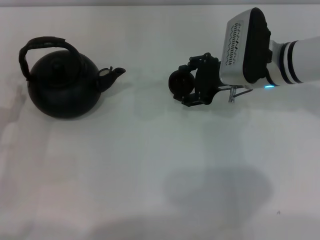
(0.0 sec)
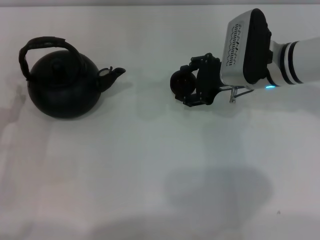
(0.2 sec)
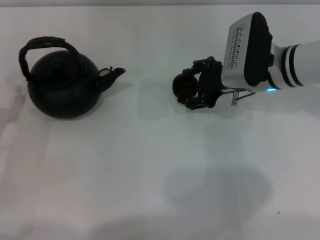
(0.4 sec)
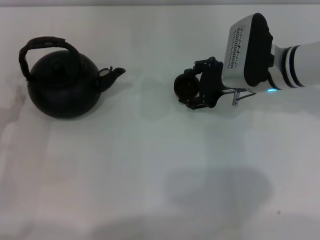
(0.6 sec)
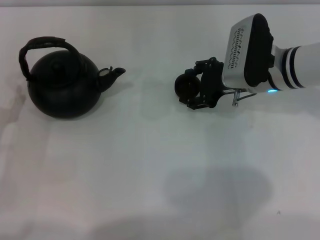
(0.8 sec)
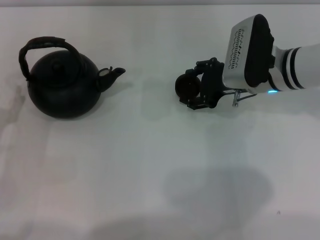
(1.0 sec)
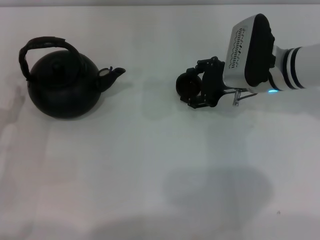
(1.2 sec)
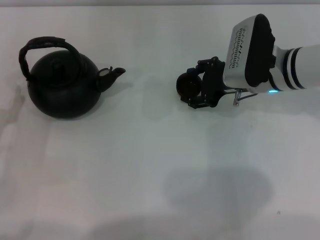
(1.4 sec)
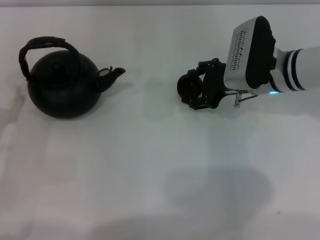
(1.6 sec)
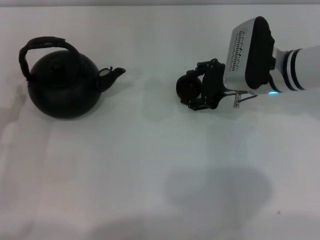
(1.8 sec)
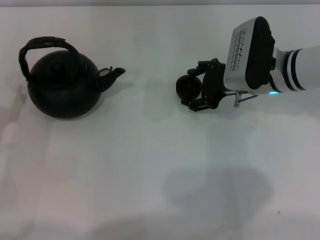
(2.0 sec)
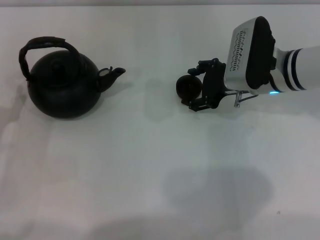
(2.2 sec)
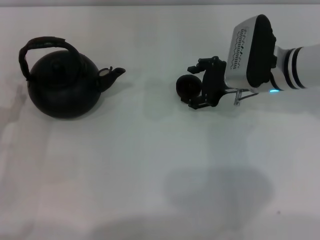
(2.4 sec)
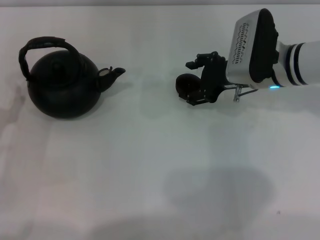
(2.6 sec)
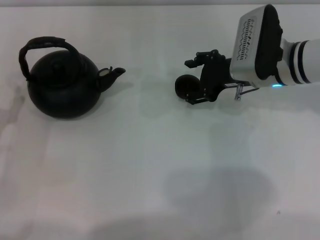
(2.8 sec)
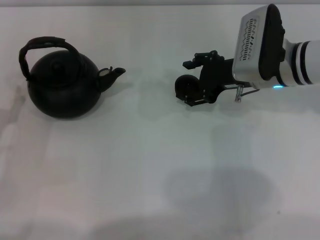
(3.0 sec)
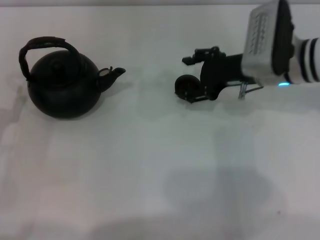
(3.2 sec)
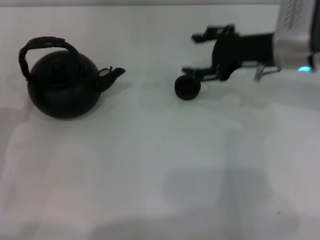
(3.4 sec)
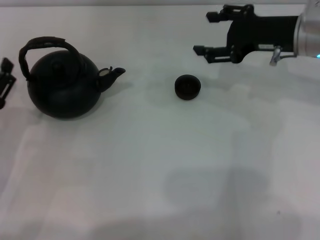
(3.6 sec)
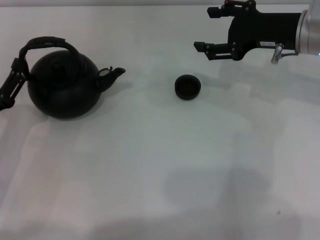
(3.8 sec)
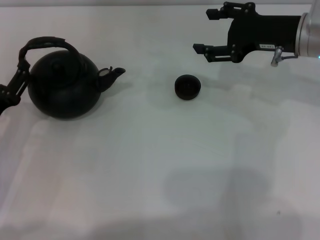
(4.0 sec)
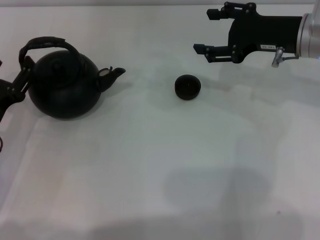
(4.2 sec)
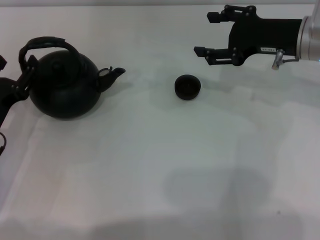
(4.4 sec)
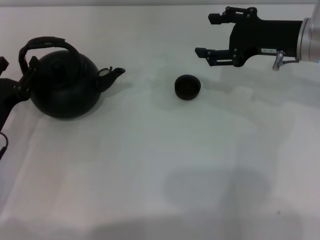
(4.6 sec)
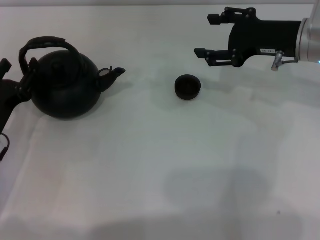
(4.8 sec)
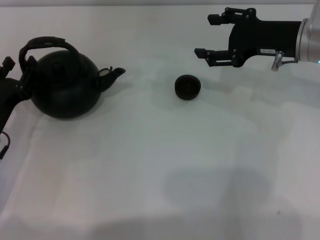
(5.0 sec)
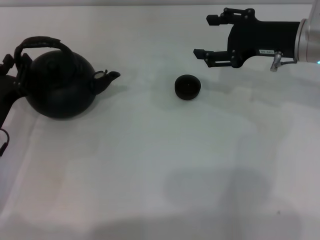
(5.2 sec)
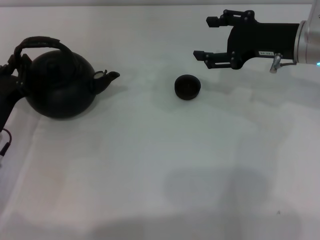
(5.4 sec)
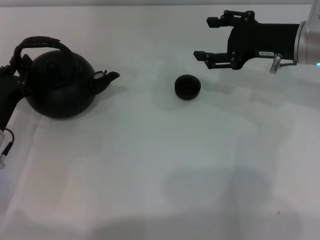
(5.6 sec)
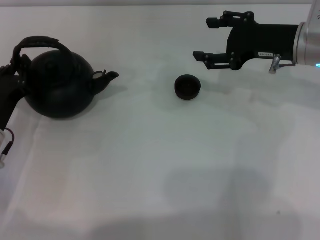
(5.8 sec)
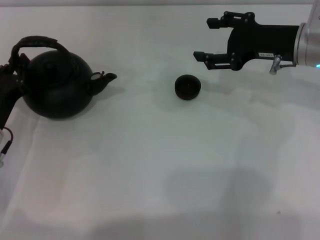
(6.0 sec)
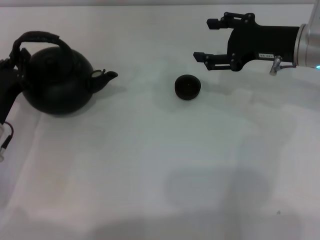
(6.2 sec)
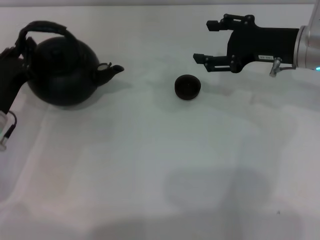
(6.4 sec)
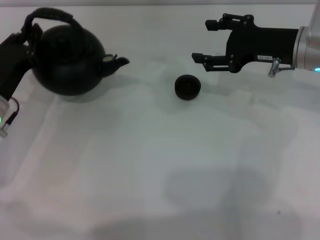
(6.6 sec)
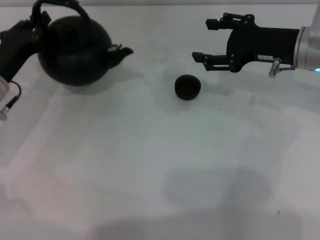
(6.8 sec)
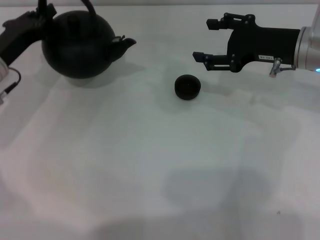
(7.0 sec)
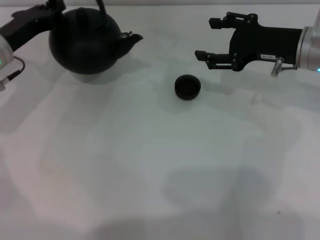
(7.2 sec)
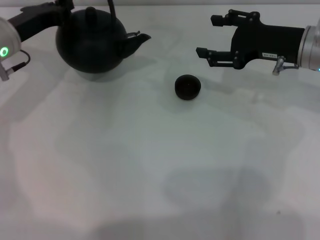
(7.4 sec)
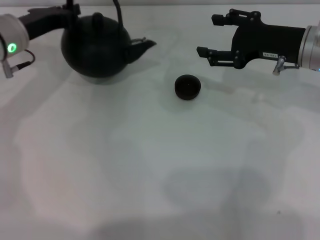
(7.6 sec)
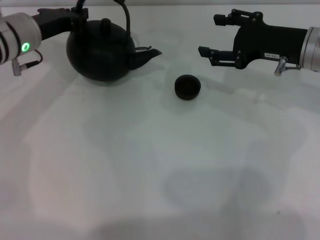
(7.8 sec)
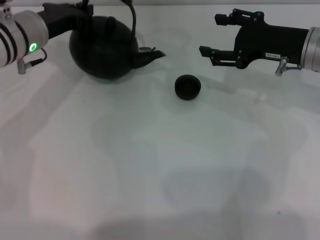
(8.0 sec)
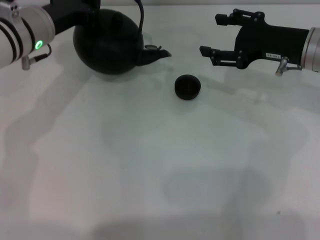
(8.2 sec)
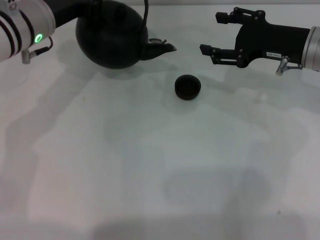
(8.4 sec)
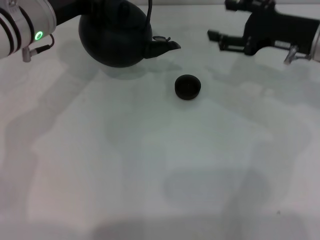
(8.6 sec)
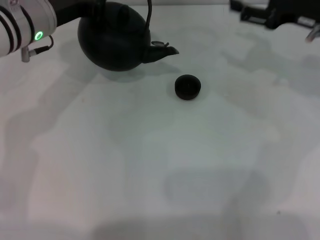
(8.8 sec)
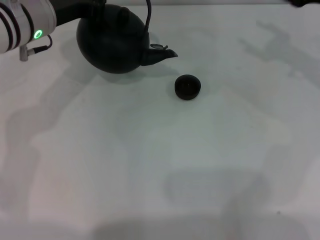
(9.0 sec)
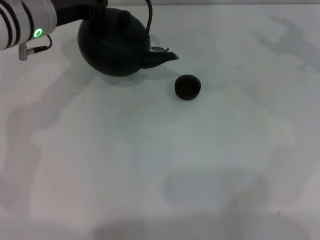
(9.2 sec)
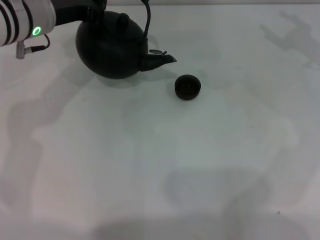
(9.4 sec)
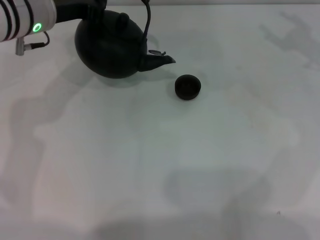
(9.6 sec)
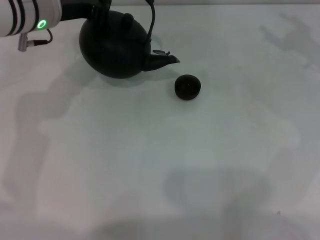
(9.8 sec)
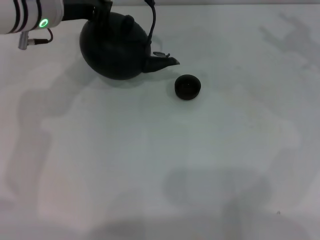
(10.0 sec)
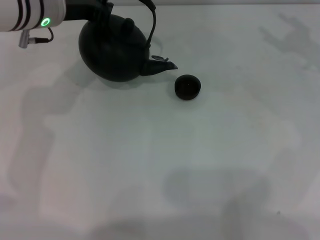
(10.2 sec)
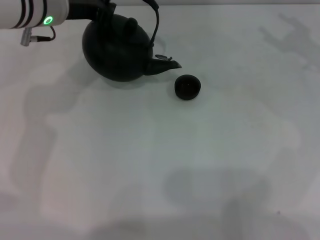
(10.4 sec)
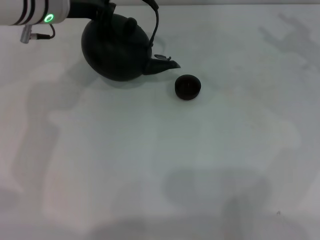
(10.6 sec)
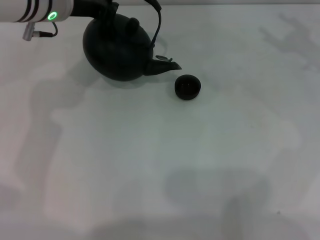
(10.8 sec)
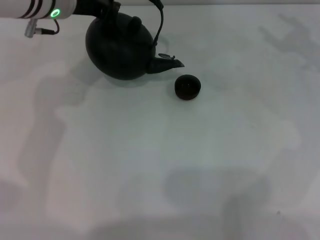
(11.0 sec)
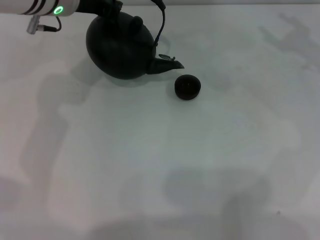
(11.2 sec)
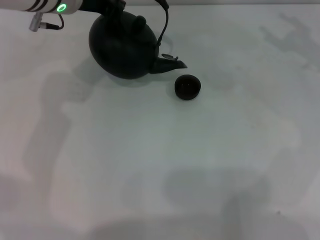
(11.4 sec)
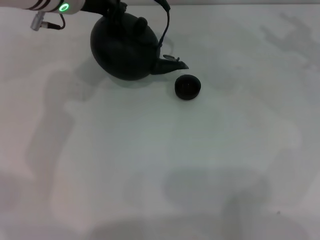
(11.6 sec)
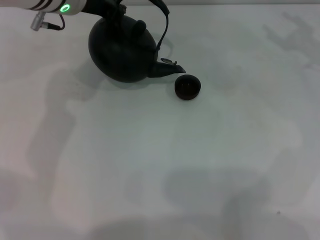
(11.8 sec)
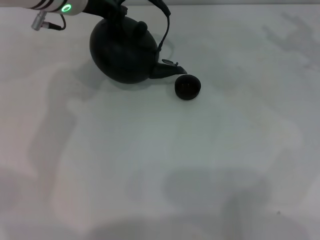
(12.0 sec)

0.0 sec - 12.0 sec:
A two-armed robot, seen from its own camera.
Task of the whole recording: Grasp the handle of the teapot with one hand and pour tea into the teacup.
Step, 0.0 sec - 3.2 sec: Place the teacup in the center of view with the right gripper.
Step, 3.4 sec - 7.8 sec: Pick up the teapot with the left gripper.
0.0 sec - 3.0 sec: The grippers make only small movements.
3.0 sec - 4.4 sec: The right gripper goes approximately 5 cm to the right.
4.4 sec - 6.0 sec: The left gripper closes up.
6.0 sec - 7.6 sec: The left gripper is displaced forward and upward by roughly 15 cm.
7.6 sec - 9.0 sec: Both grippers move to the right, about 5 cm.
9.0 sec - 10.4 sec: The grippers make only small movements.
10.4 sec - 12.0 sec: The grippers stay close to where they were, moving slightly.

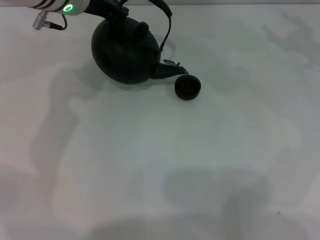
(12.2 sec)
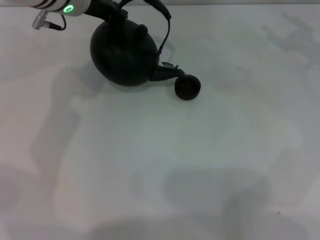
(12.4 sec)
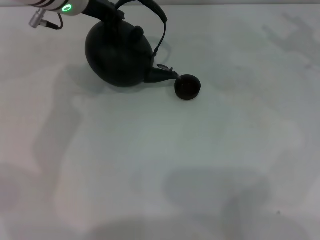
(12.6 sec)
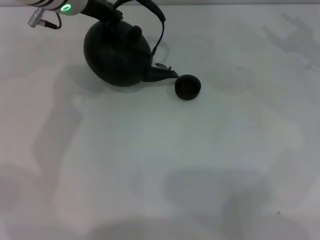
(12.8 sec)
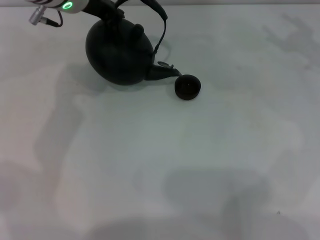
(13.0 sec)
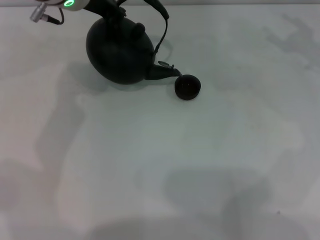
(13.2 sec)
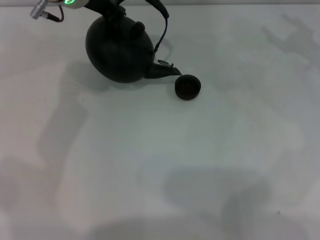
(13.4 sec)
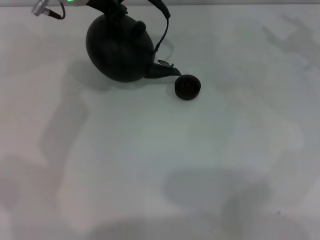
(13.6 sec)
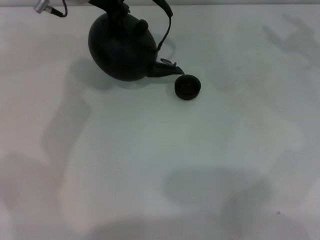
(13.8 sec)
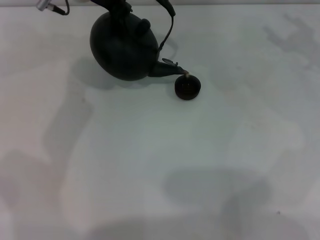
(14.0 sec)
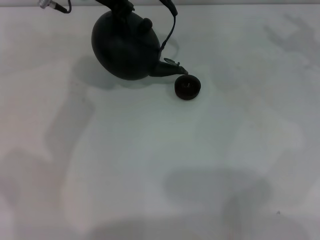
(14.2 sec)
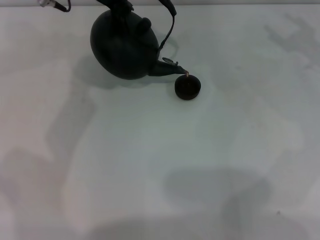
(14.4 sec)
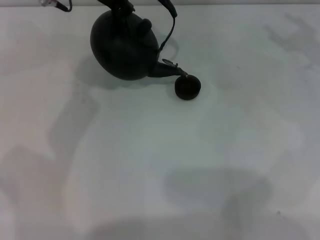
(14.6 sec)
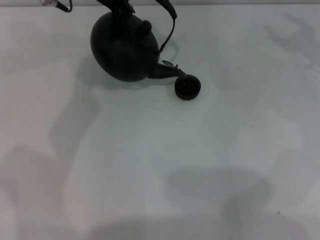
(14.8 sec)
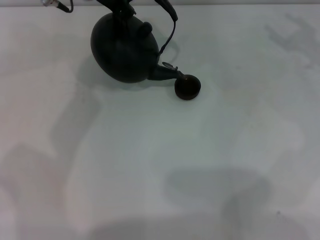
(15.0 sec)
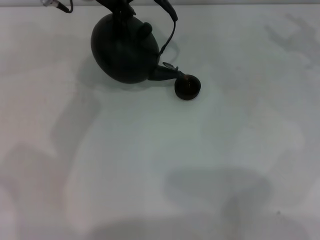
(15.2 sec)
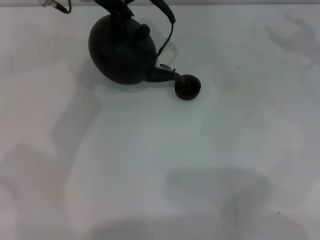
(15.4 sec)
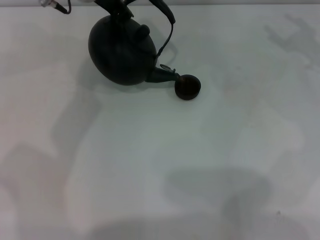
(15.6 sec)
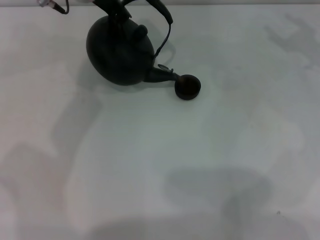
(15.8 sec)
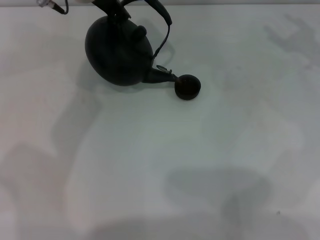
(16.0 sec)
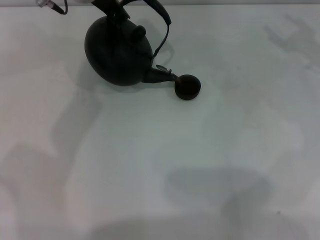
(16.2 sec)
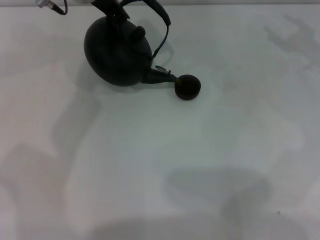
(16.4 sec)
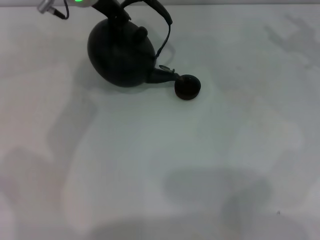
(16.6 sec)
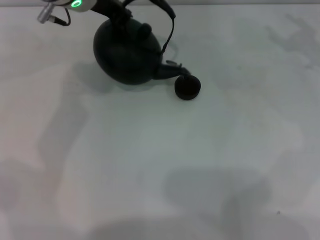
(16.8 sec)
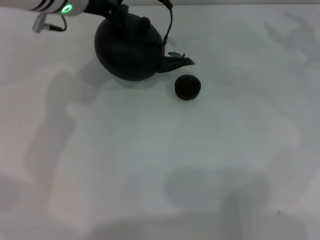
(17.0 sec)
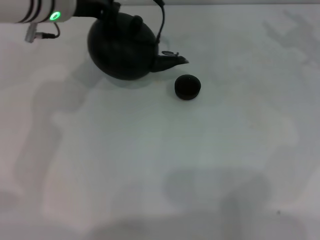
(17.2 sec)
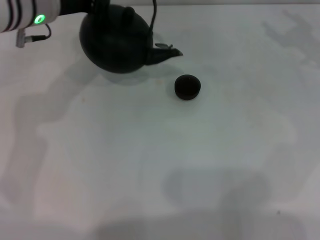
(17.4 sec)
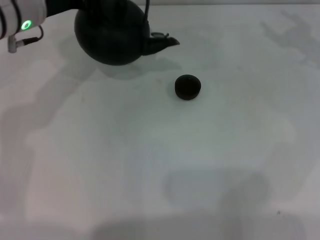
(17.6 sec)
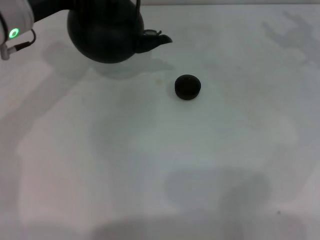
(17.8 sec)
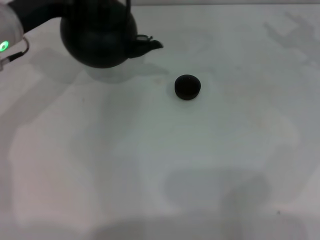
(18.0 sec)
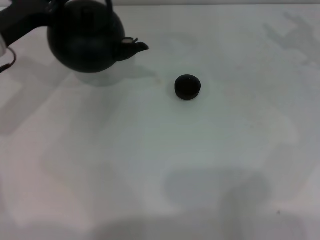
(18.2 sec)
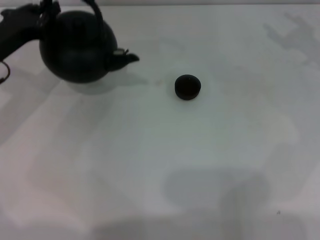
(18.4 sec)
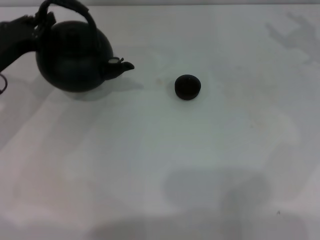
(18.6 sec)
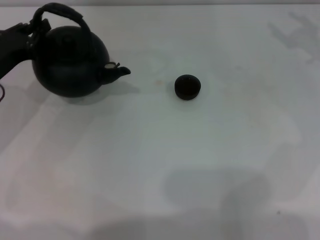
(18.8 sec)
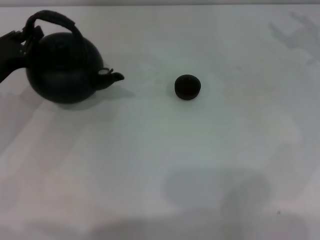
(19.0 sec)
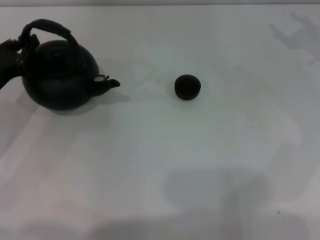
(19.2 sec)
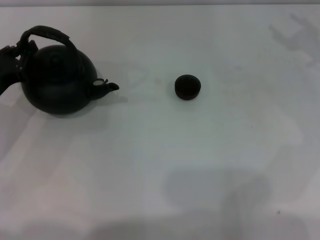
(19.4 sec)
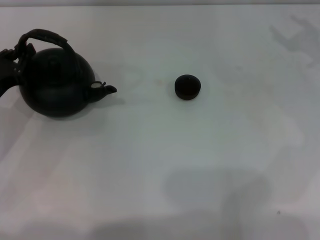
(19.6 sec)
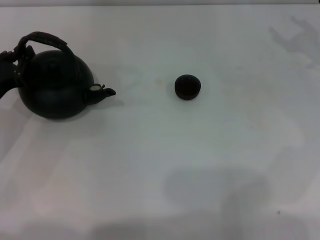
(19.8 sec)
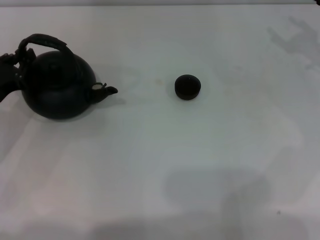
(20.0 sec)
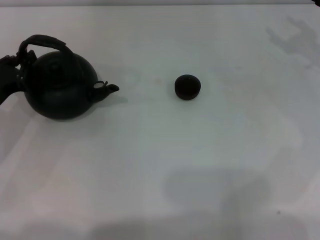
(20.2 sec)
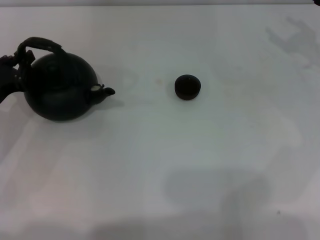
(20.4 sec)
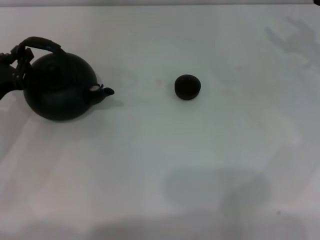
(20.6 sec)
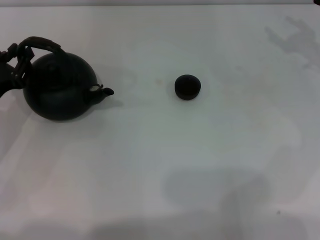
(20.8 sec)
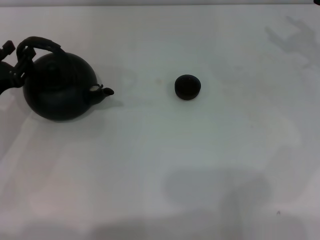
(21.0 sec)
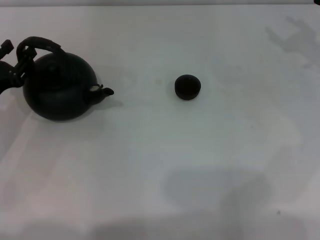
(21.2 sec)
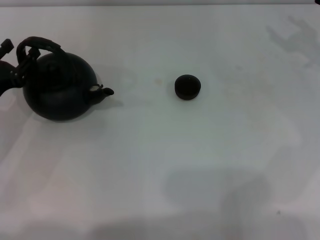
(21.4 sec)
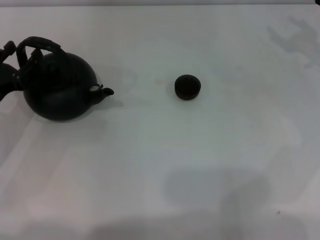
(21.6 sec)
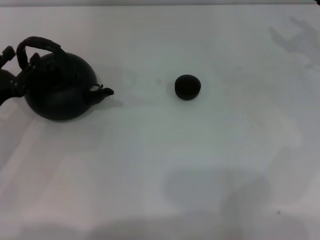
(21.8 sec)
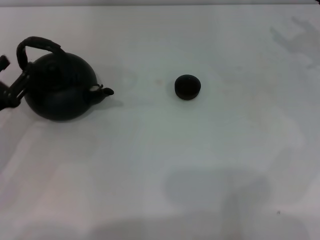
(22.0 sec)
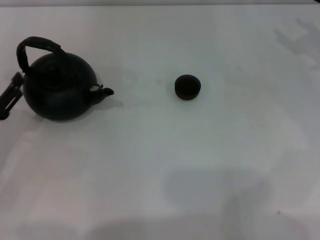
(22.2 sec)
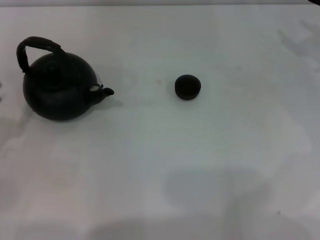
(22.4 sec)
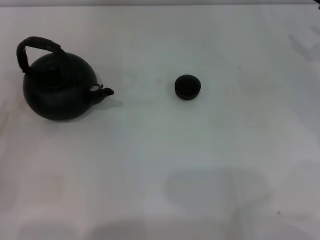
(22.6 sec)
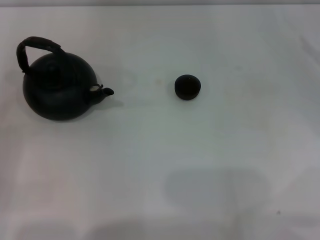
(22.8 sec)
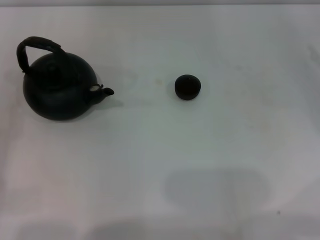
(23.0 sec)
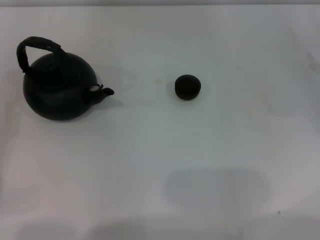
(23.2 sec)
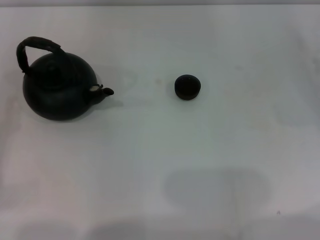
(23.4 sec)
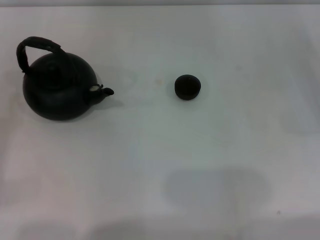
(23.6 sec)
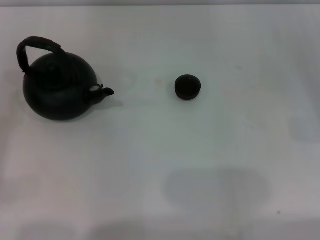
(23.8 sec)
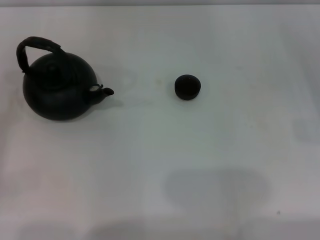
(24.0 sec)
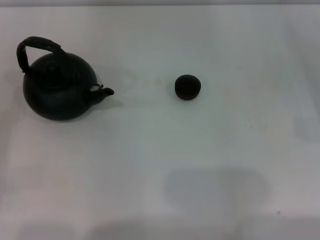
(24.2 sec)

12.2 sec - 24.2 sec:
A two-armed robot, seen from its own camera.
Task of the whole recording: Grasp the handle of the teapot with one hand and pour tea into the teacup.
Step, 12.2 sec - 16.8 sec: Pour tea into the teacup with the left gripper.
Step, 17.0 sec - 22.2 sec: Put down the teapot with the left gripper.
12.2 sec - 15.2 sec: The grippers move only a little.
15.2 sec - 16.6 sec: The two grippers keep their place.
16.6 sec - 18.2 sec: The left gripper shifts approximately 20 cm to the left and downward.
18.2 sec - 19.8 sec: The left gripper goes approximately 10 cm backward and downward.
19.8 sec - 21.2 sec: The left gripper opens.
21.2 sec - 22.6 sec: The left gripper travels backward by roughly 10 cm.
